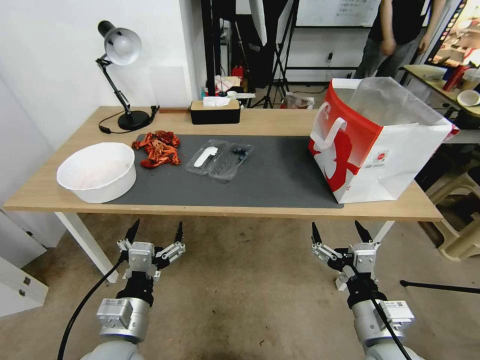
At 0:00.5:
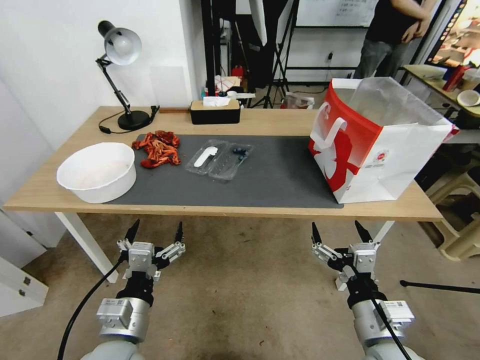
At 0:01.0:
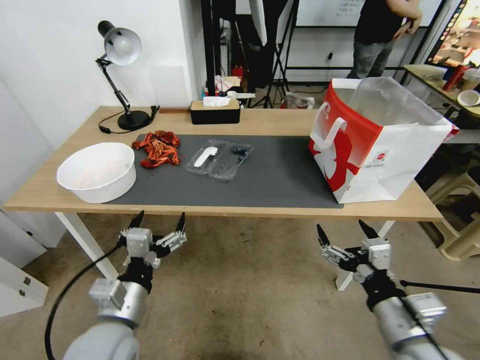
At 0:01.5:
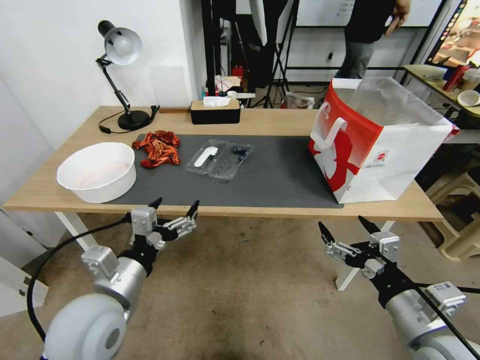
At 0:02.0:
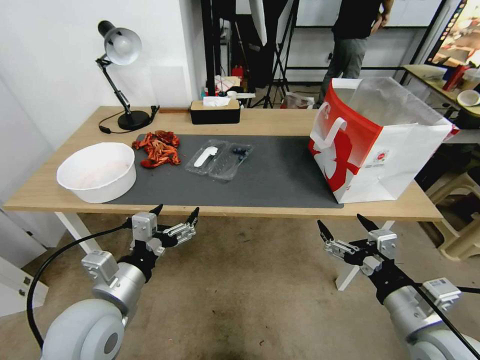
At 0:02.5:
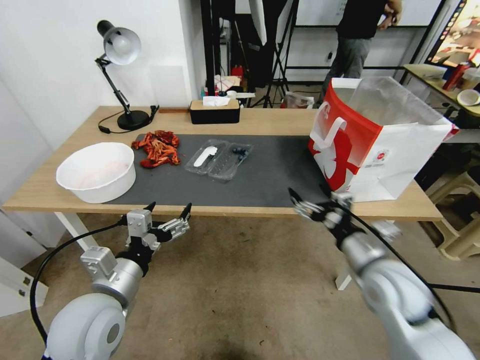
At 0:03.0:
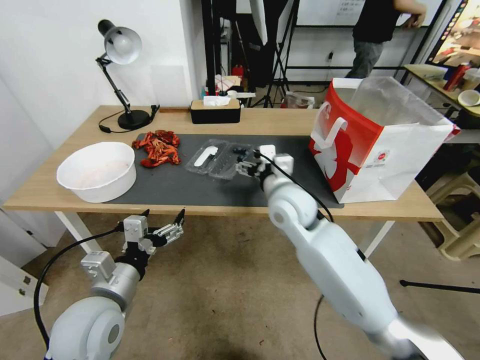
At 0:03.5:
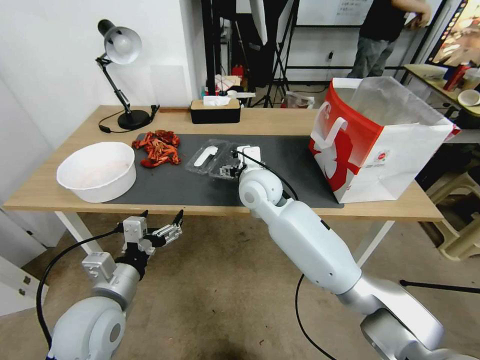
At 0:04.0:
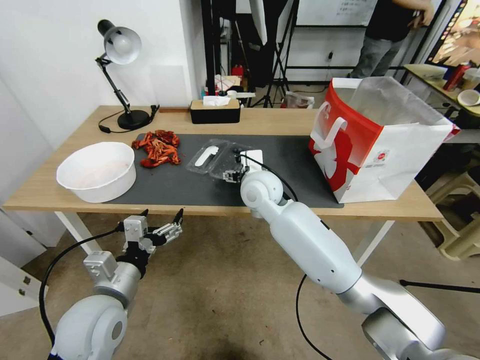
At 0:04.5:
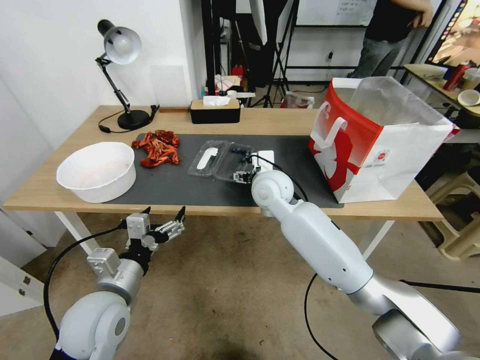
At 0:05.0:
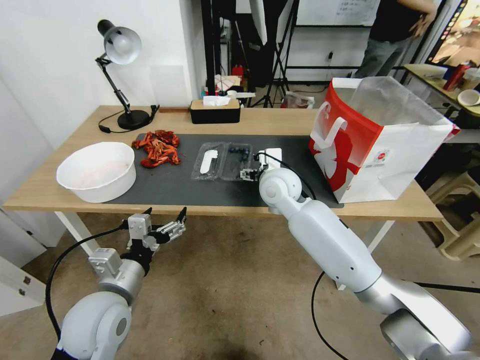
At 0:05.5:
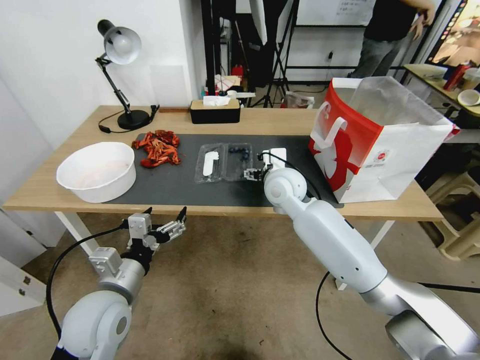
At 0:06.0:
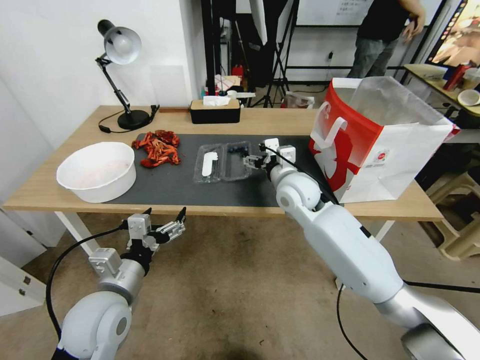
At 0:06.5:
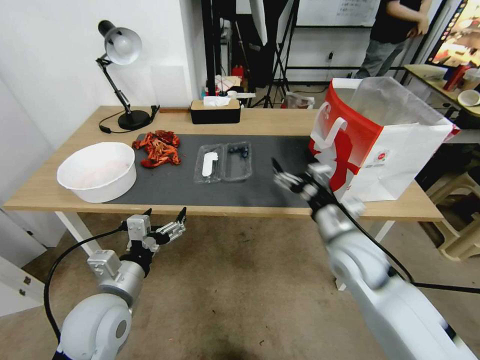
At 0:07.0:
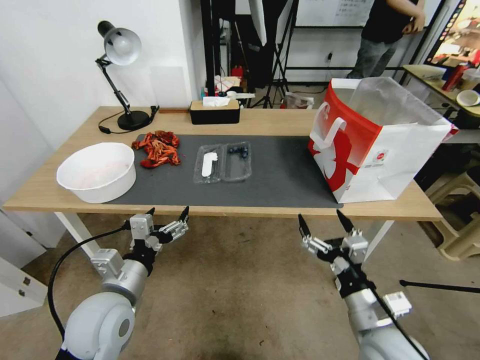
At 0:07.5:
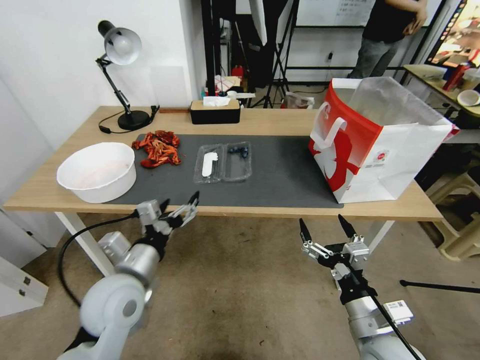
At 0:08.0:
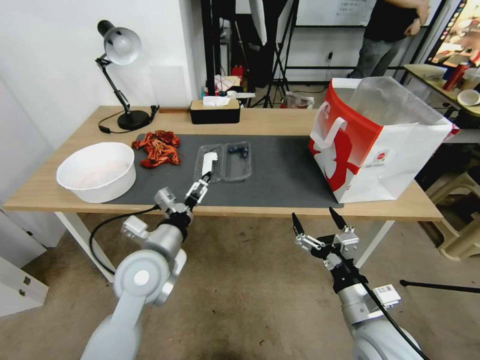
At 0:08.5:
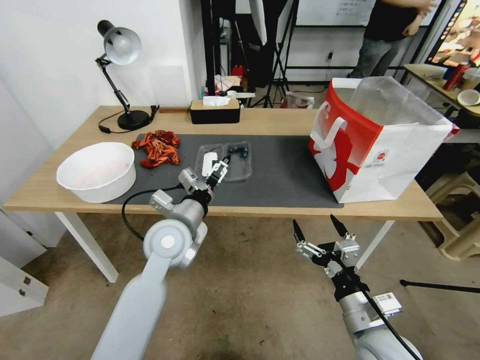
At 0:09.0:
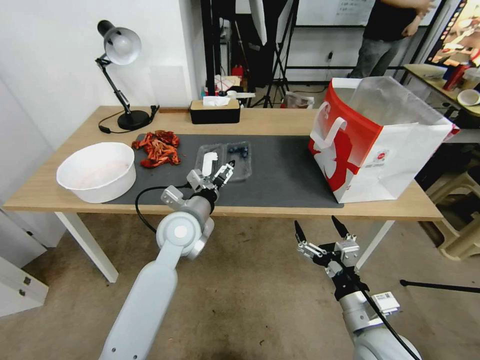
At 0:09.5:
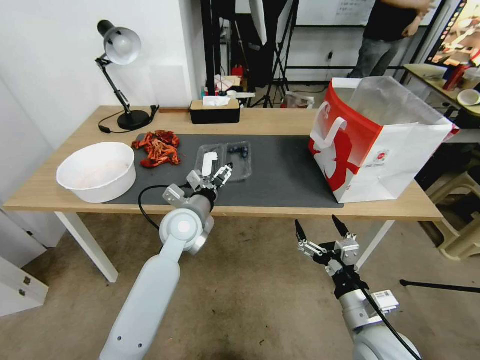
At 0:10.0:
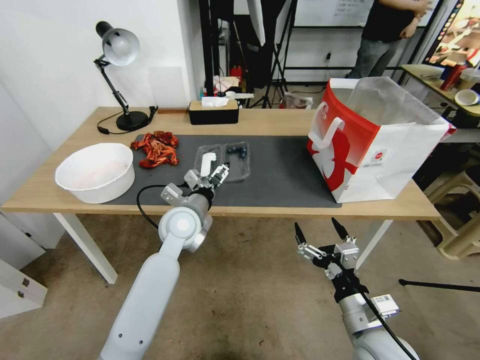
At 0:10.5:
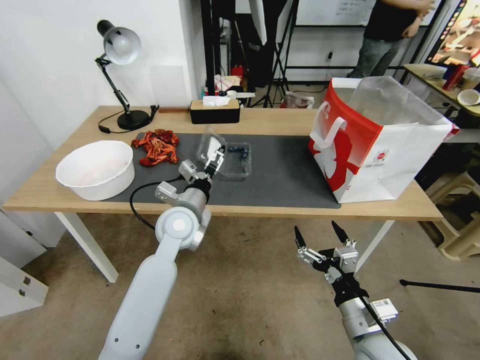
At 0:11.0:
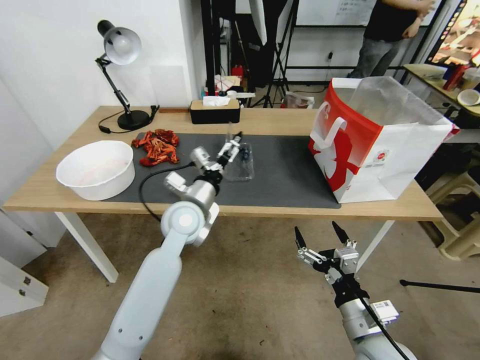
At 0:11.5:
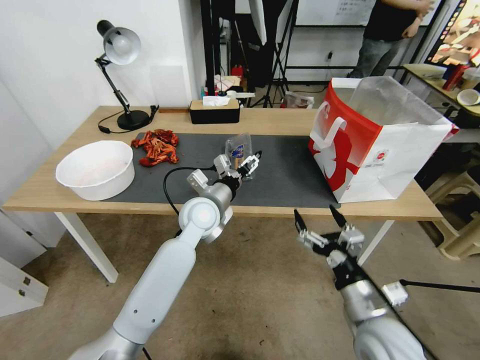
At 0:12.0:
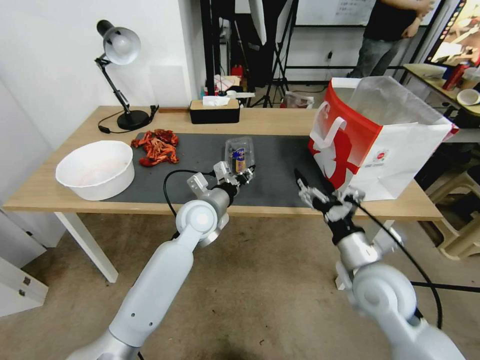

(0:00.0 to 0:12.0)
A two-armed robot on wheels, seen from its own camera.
Task of the whole recording: Close the takeout container lid, then place the container into the takeout bag.
0:02.0 - 0:04.0: The right gripper moves forward and to the left, roughly 40 cm.
0:04.0 - 0:06.0: The right gripper heads to the right, covering roughly 10 cm.
0:06.0 - 0:08.0: The right gripper moves backward and to the right, some 30 cm. Meanwhile the left gripper is displaced forward and to the right by roughly 10 cm.
0:08.0 - 0:10.0: The left gripper heads forward, covering some 10 cm.
0:10.0 - 0:12.0: The left gripper closes. Meanwhile the right gripper goes some 10 cm forward and upward.

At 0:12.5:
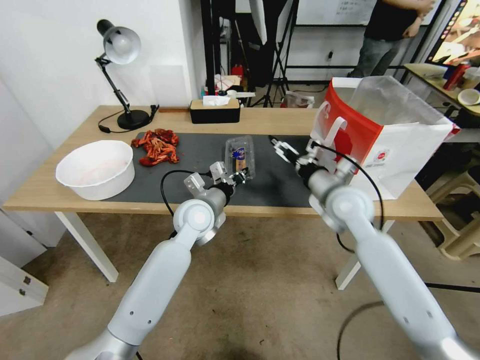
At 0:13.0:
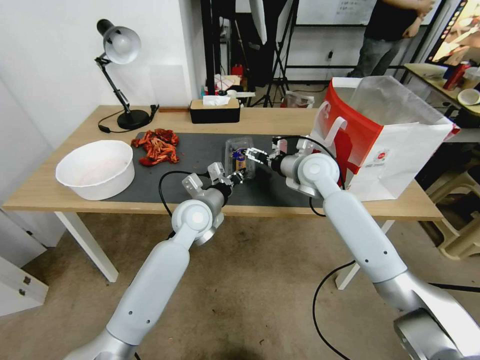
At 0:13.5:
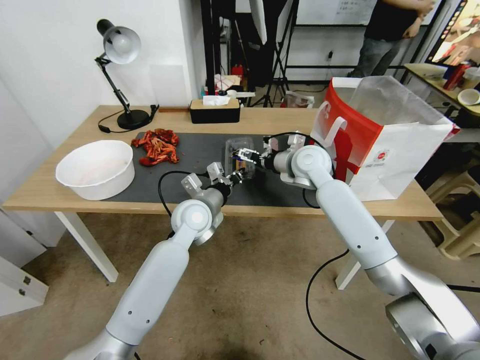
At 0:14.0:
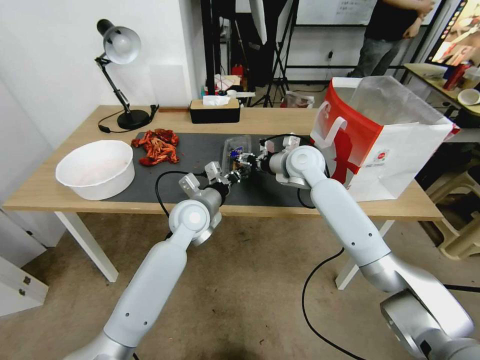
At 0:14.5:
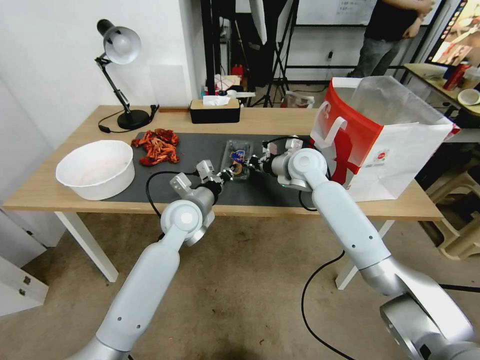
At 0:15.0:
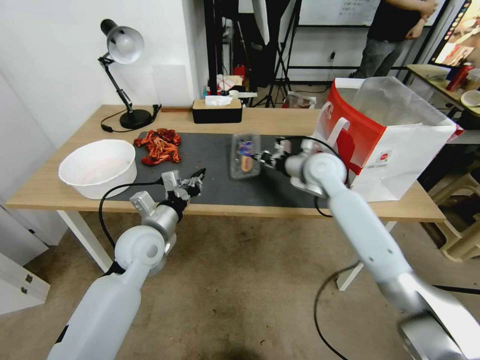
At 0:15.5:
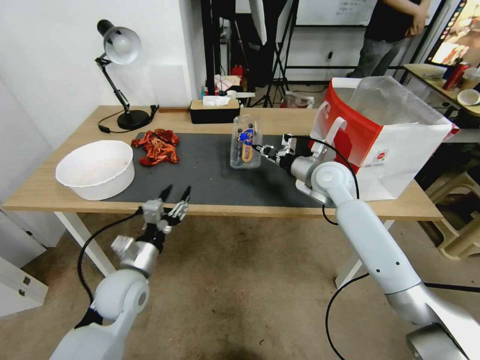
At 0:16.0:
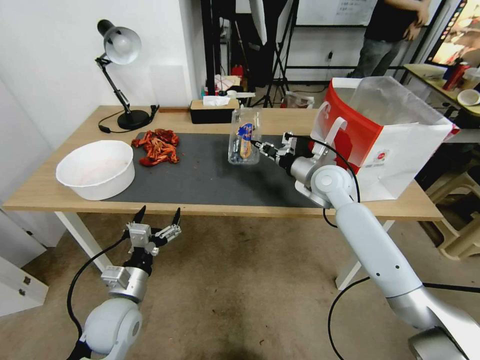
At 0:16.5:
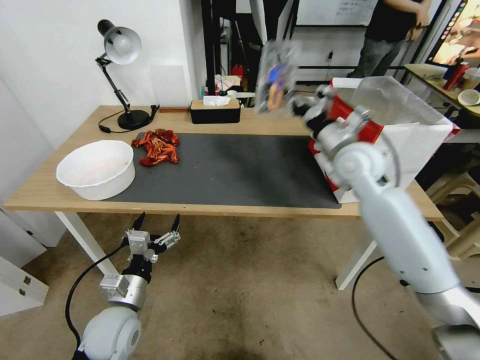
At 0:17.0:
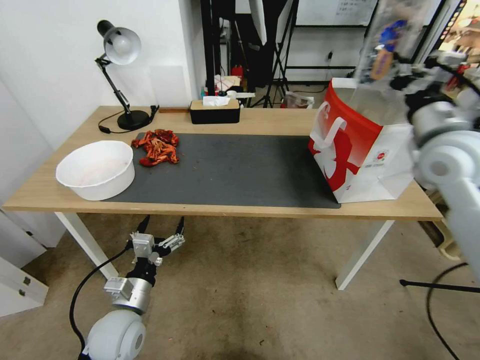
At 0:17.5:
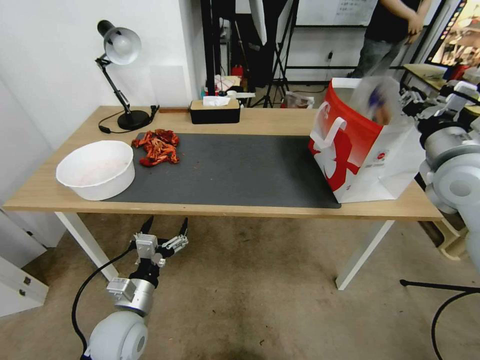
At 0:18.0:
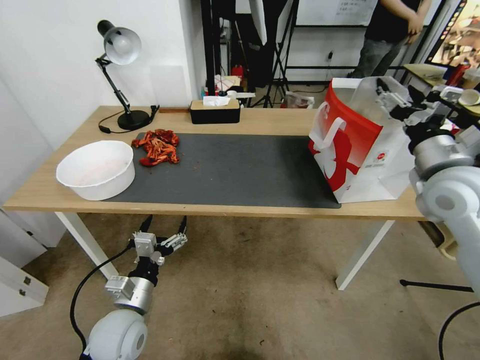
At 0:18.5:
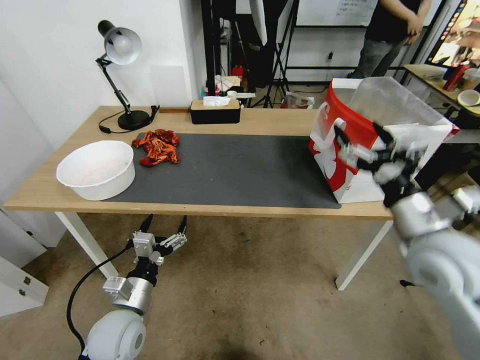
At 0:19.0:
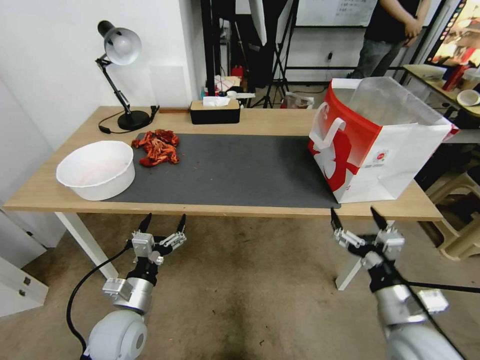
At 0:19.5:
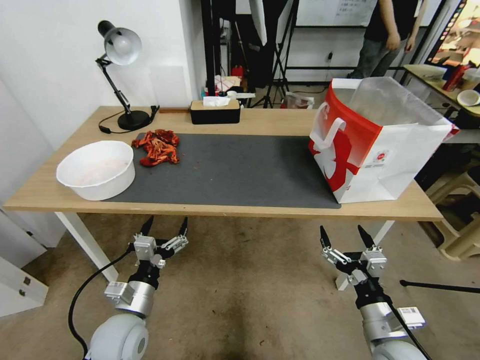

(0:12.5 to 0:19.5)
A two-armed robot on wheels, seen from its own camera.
Task of the whole recording: Close the takeout container lid, then place the container into the takeout bag.
0:12.5 - 0:14.5: The right gripper heads forward and to the left, covering about 15 cm, and closes.
0:14.5 - 0:16.0: The left gripper moves backward, to the left and downward, about 25 cm, and opens up. The right gripper travels to the right by about 5 cm.
0:16.0 - 0:17.5: The right gripper is displaced to the right, upward and backward by about 25 cm.
0:17.5 - 0:19.5: The right gripper shifts approximately 35 cm downward and backward, and opens its fingers.
